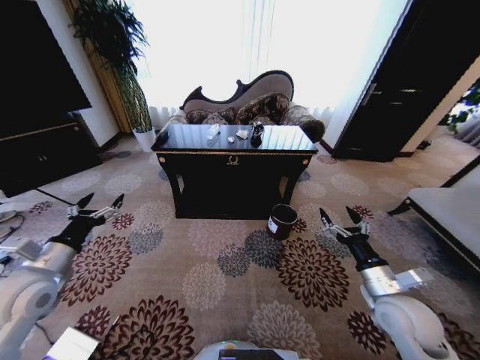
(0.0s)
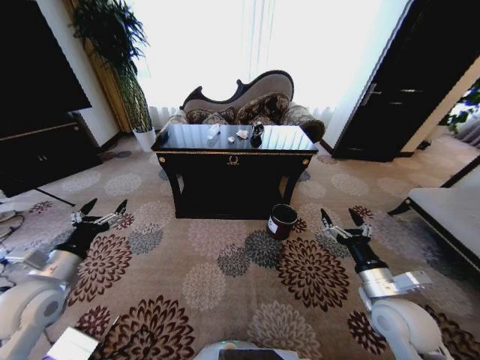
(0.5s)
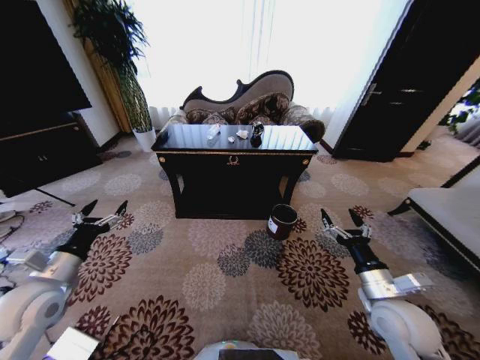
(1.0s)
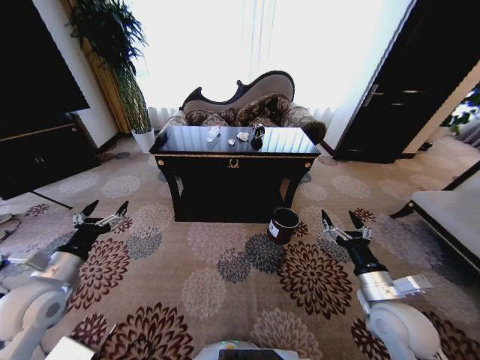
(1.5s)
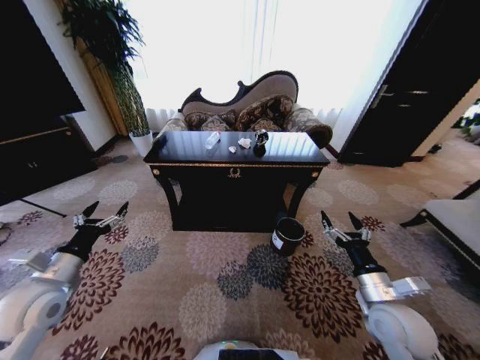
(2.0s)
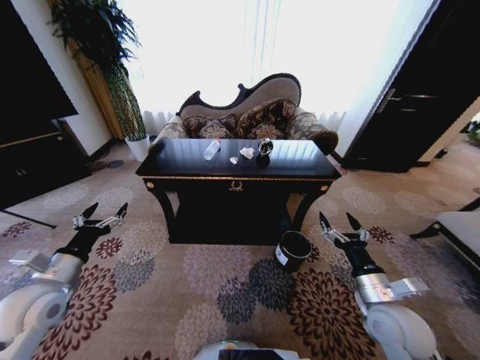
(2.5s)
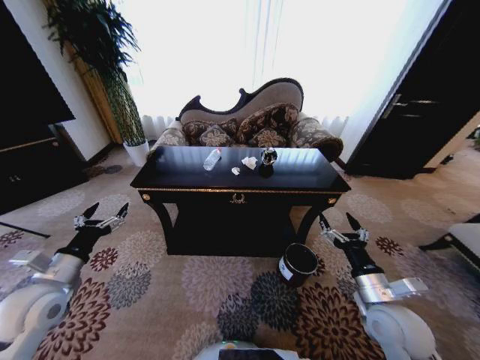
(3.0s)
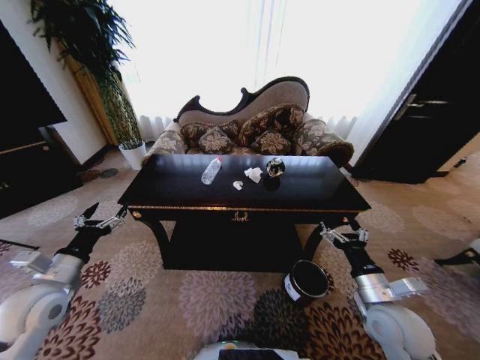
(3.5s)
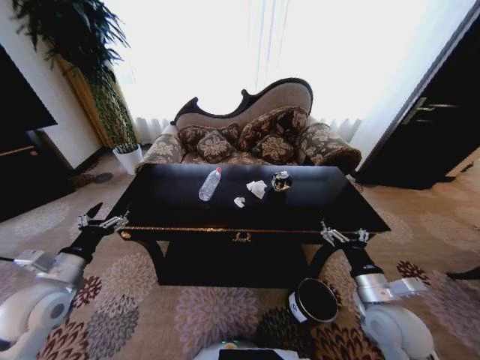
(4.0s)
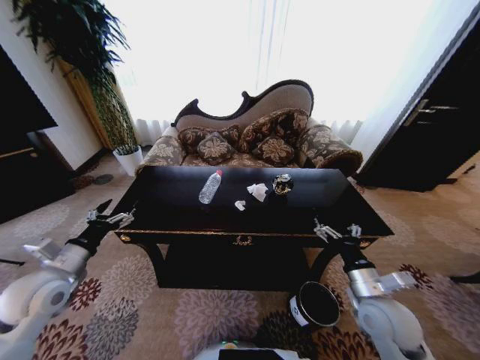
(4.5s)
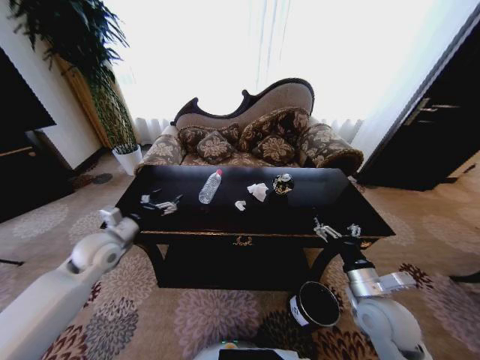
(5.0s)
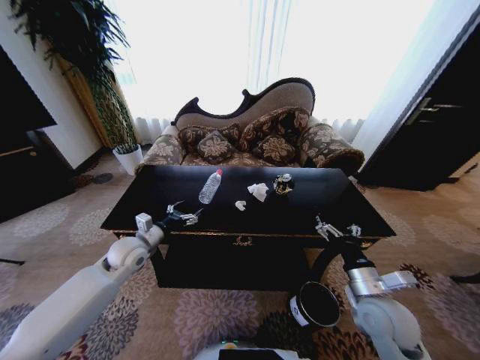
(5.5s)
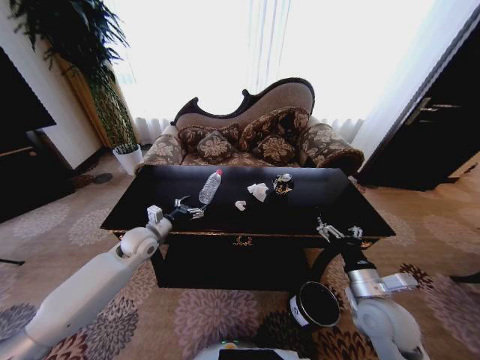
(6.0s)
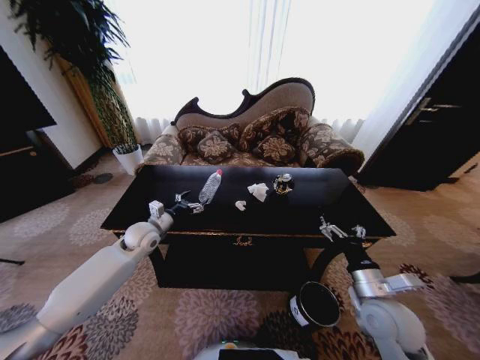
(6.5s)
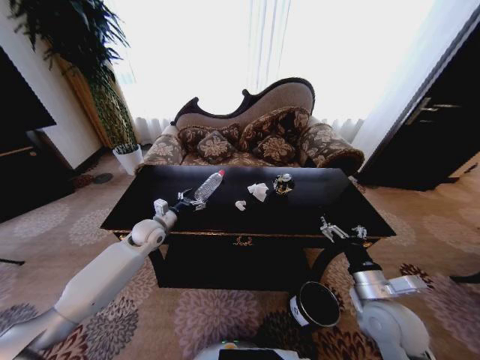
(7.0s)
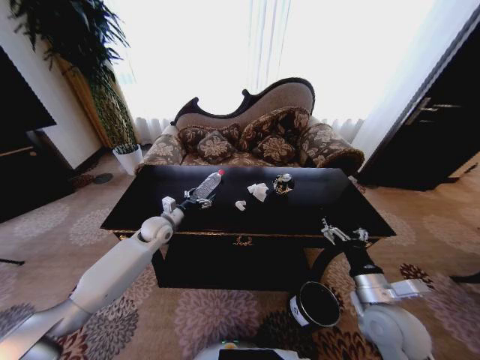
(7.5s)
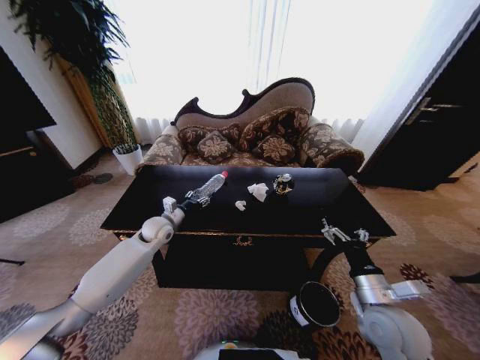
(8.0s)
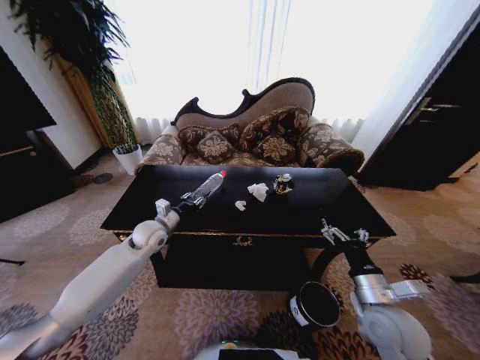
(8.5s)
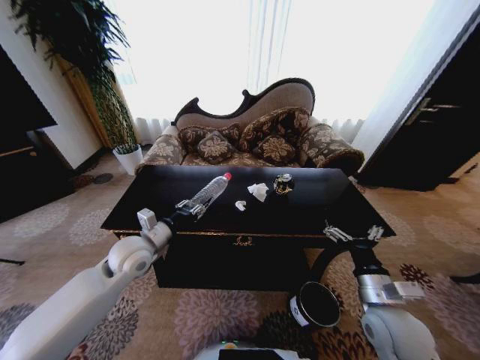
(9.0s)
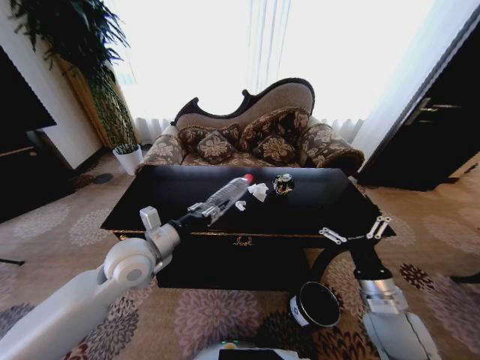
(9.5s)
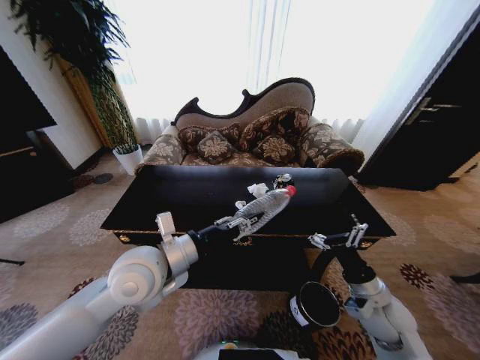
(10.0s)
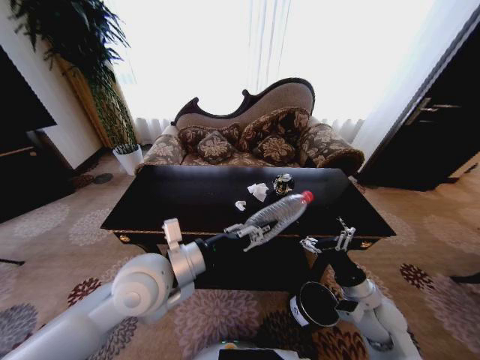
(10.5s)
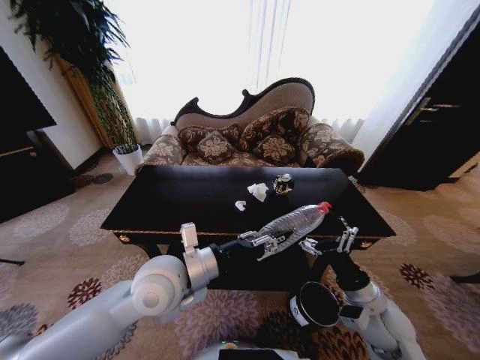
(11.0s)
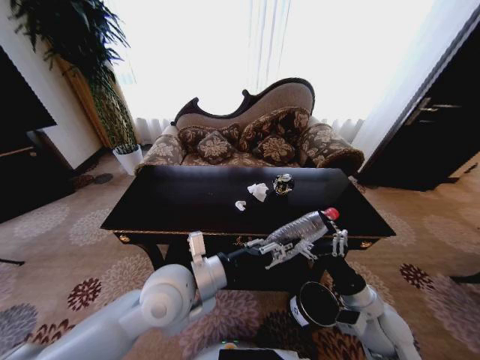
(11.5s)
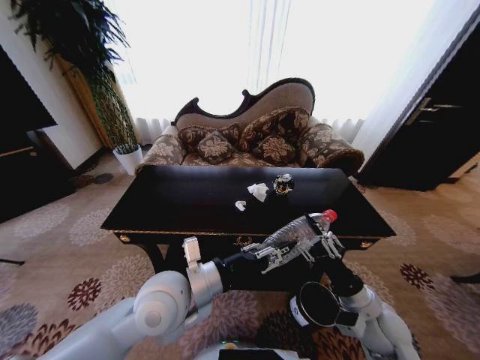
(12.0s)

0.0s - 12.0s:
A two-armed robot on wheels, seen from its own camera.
Task of the whole recording: Move to the front of the table and place the trash on the table into the trash bin.
4.0s - 6.0s: The left gripper shifts approximately 20 cm forward and to the right.
6.0s - 8.0s: The left gripper goes some 5 cm forward, and closes its fingers.
8.0s - 10.0s: The right gripper moves approximately 5 cm, while the left gripper moves backward and upward, some 25 cm, and closes up.
10.0s - 12.0s: The right gripper closes up. The left gripper moves approximately 5 cm.

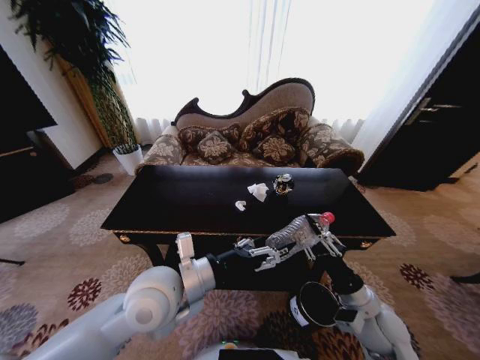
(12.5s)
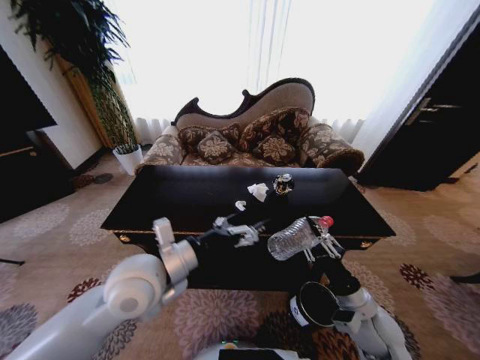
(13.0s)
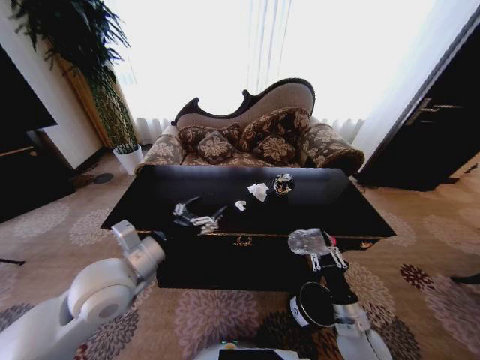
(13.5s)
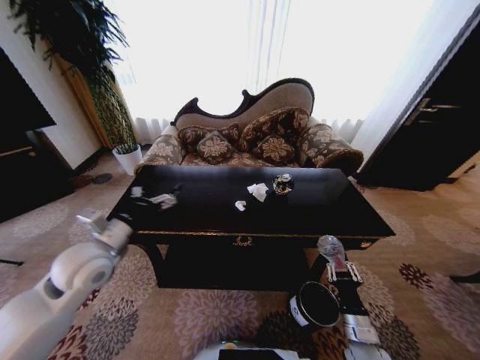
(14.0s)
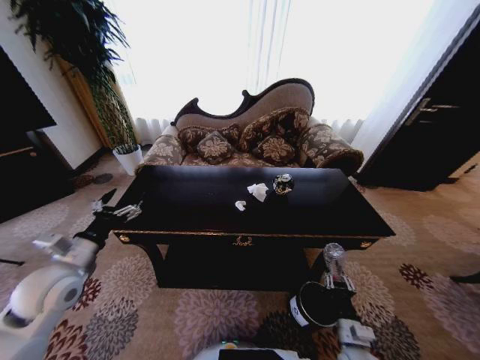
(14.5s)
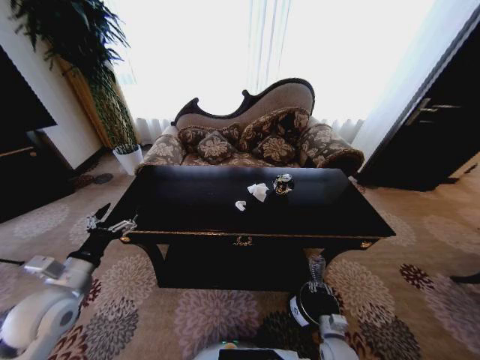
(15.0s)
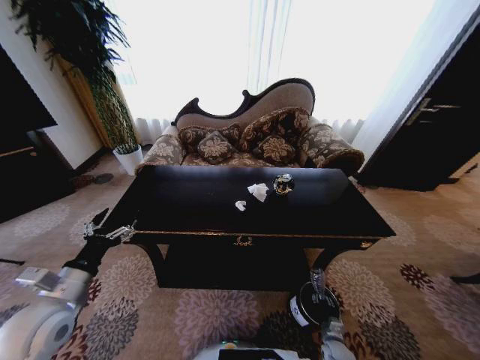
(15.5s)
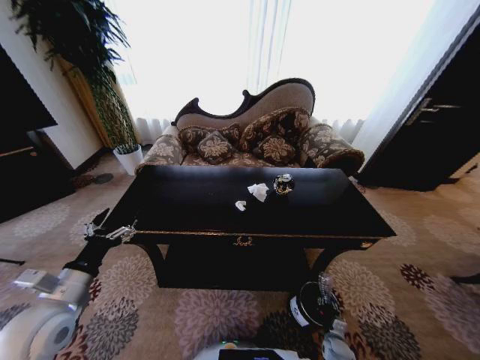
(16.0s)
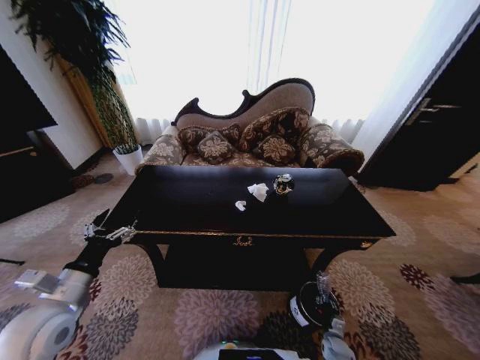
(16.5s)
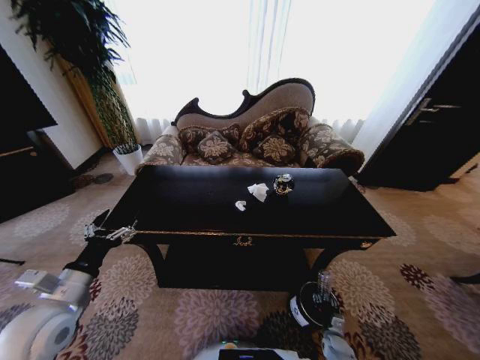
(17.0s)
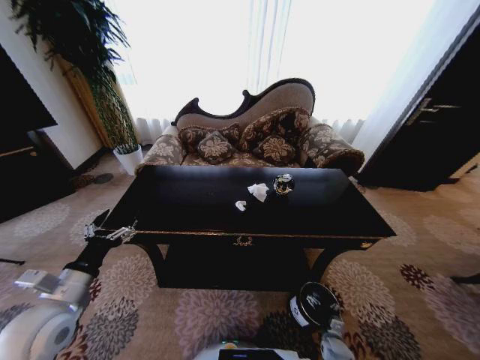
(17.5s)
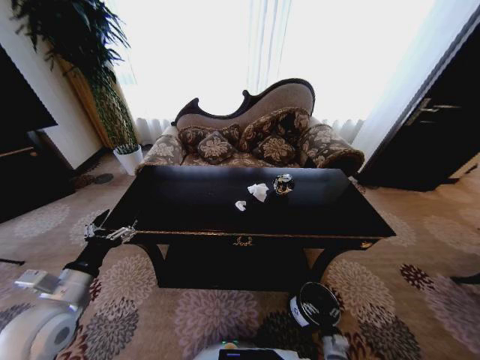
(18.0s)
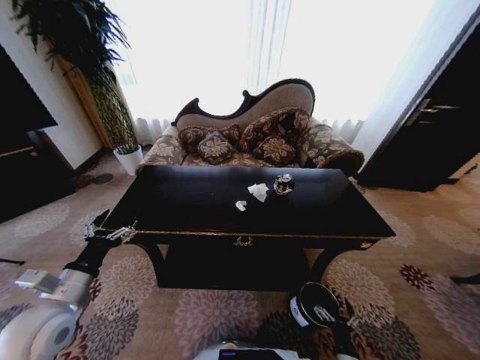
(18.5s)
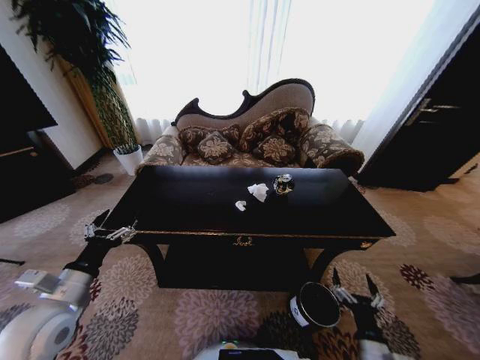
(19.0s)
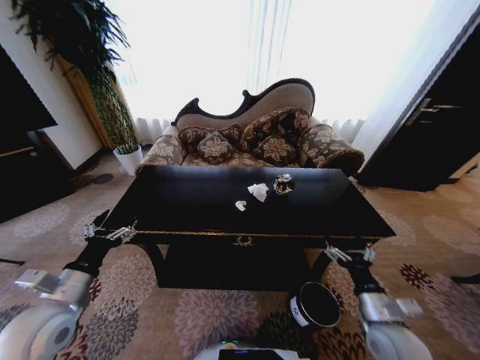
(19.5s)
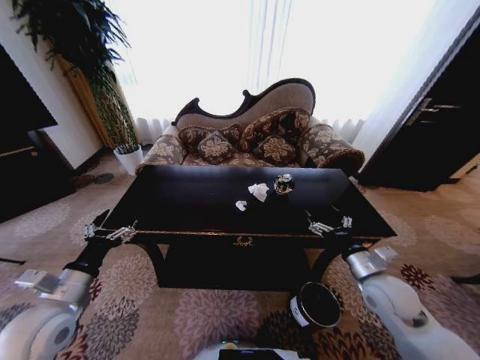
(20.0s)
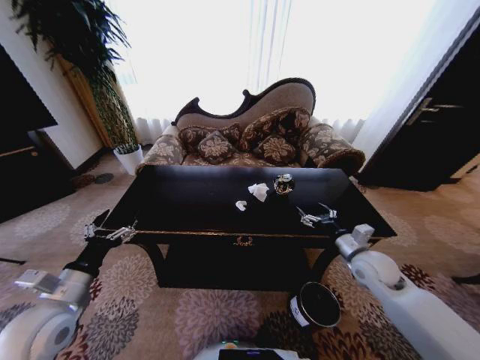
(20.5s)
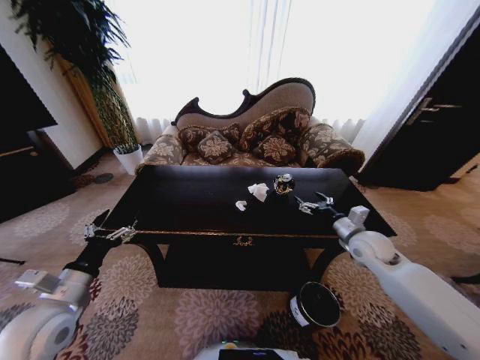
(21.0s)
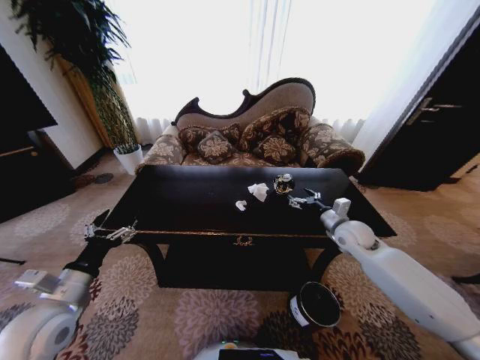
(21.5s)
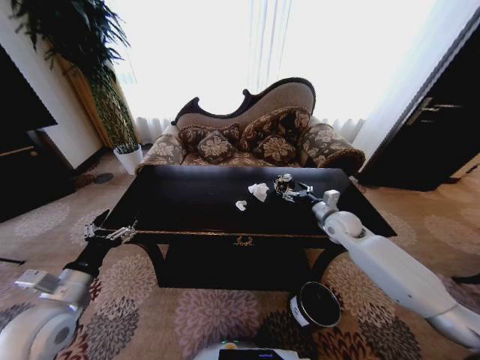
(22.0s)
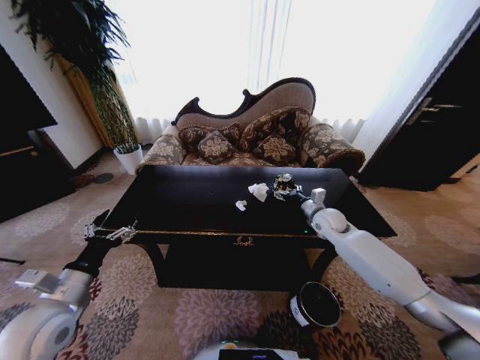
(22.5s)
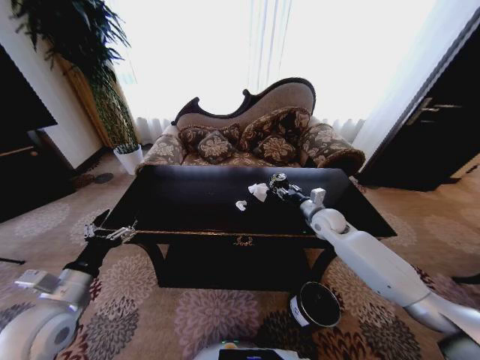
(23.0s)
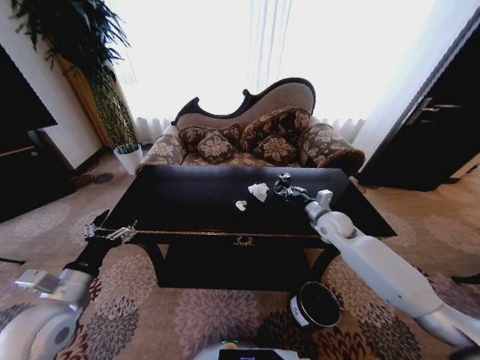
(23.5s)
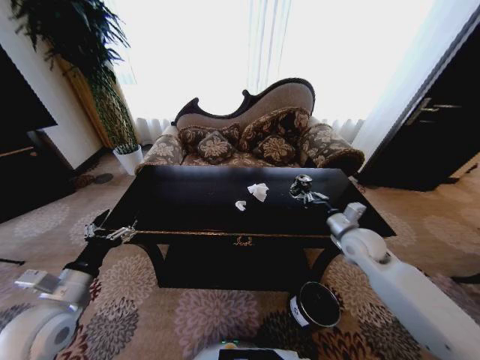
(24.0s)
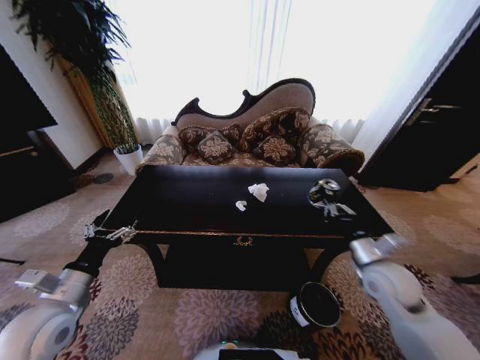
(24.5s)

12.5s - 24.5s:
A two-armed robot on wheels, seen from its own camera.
Task of the whole recording: Move to the front of the table and place the trash on the table into the trash bin.
12.5s - 14.5s: The left gripper moves to the left, about 25 cm, and opens up, while the right gripper goes about 15 cm downward and backward.
14.5s - 16.5s: The right gripper is displaced downward by some 20 cm, while the left gripper travels backward by some 5 cm.
16.5s - 18.5s: The right gripper moves upward, backward and to the left, about 20 cm, and opens its fingers.
18.5s - 20.5s: The right gripper shifts approximately 35 cm forward and upward.
20.5s - 22.5s: The right gripper is displaced forward by some 15 cm.
22.5s - 24.5s: The right gripper travels backward by approximately 20 cm, and closes its fingers.

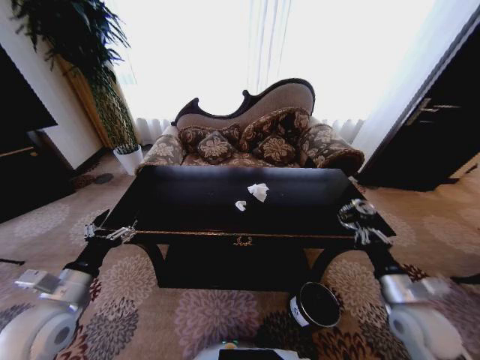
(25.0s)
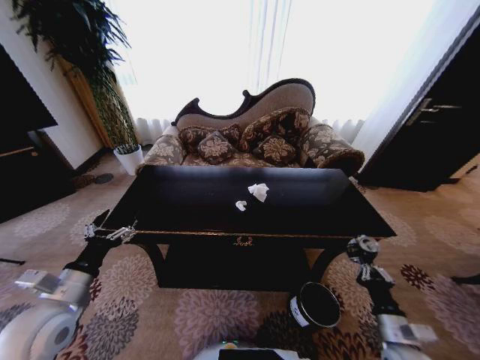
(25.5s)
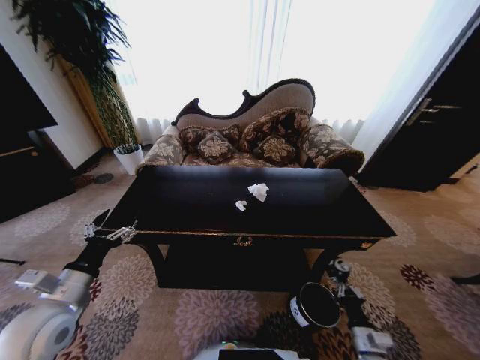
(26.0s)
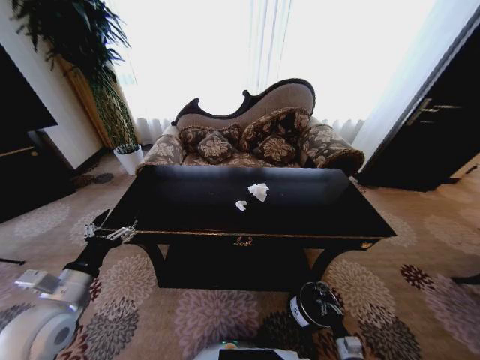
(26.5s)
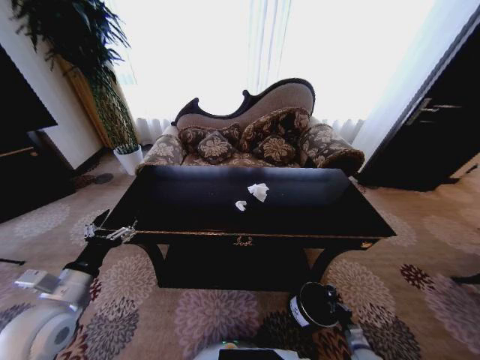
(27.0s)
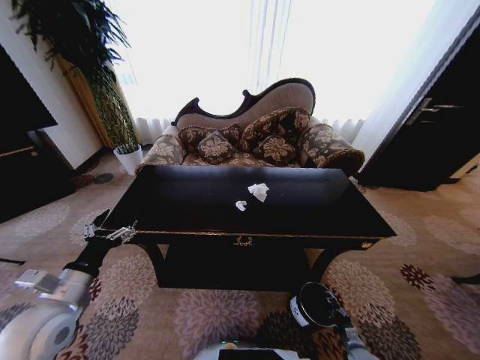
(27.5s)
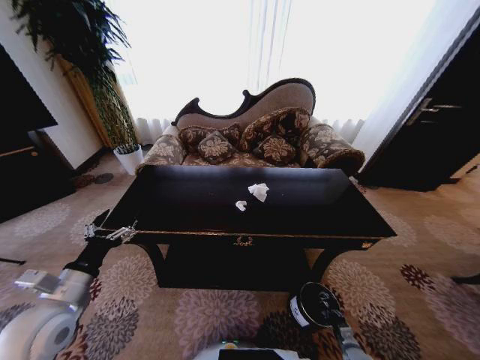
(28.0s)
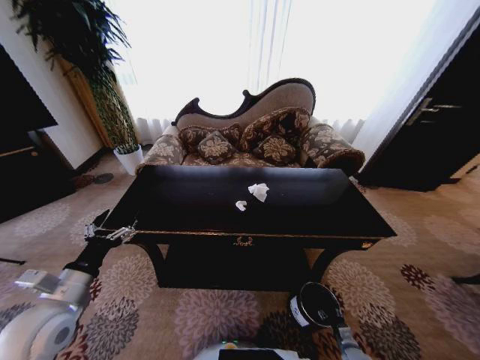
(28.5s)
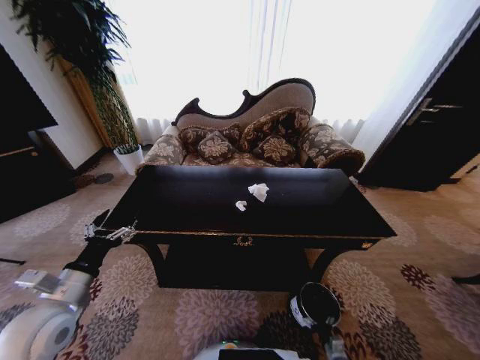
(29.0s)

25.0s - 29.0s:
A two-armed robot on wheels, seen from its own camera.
Task of the whole recording: Move to the front of the table and place the trash on the table into the trash bin.
25.0s - 27.0s: The right gripper heads downward, covering roughly 35 cm.
27.0s - 29.0s: The right gripper moves to the left, roughly 10 cm, and opens.
